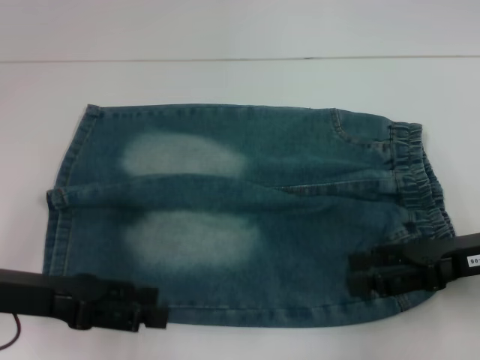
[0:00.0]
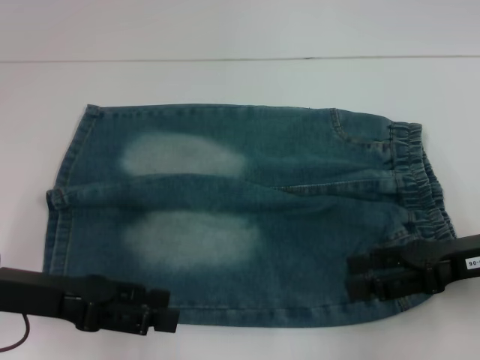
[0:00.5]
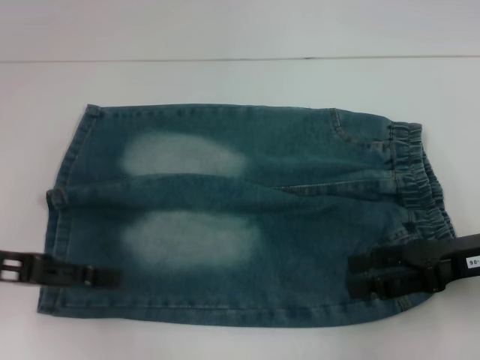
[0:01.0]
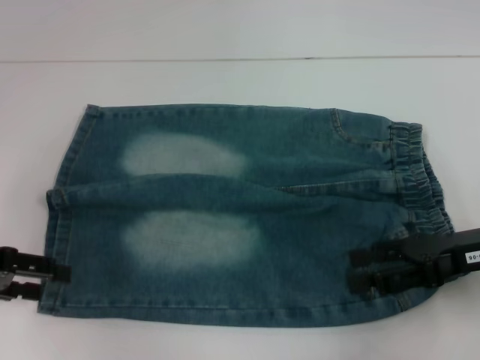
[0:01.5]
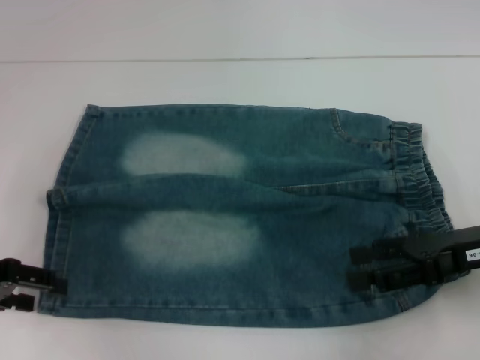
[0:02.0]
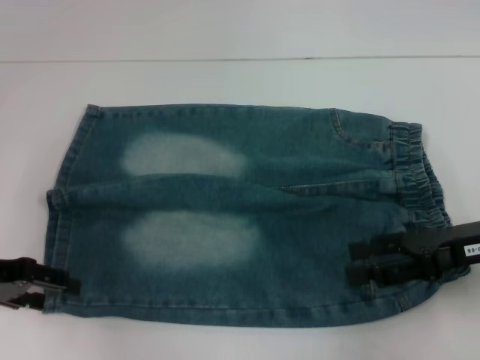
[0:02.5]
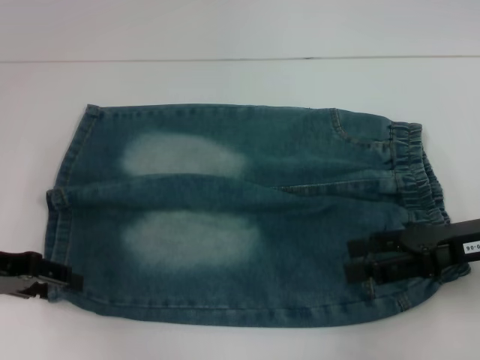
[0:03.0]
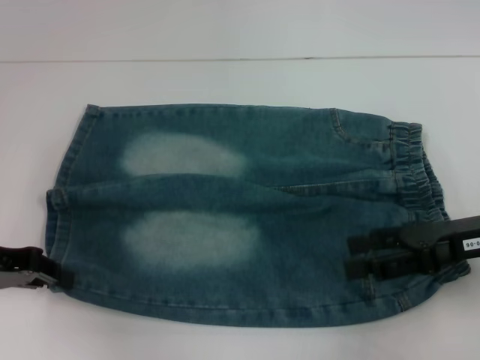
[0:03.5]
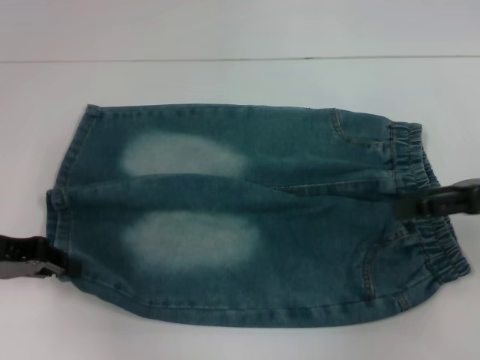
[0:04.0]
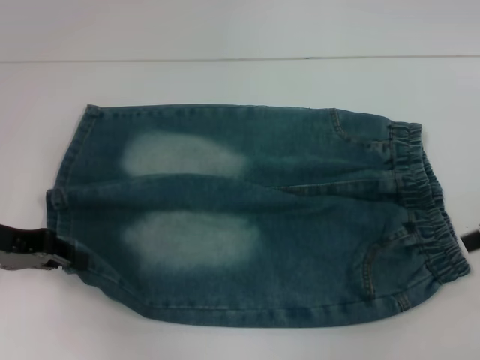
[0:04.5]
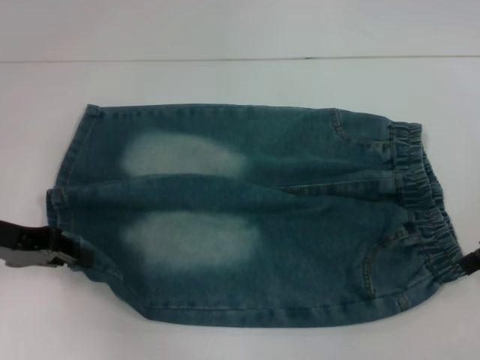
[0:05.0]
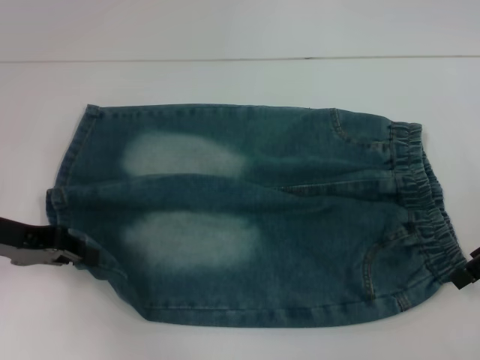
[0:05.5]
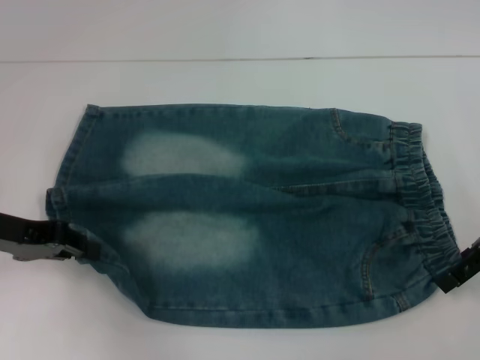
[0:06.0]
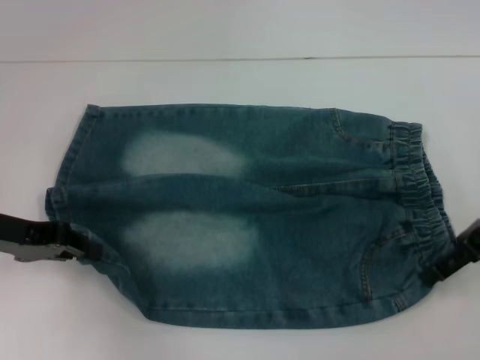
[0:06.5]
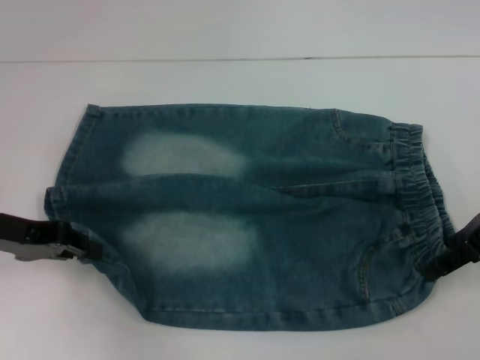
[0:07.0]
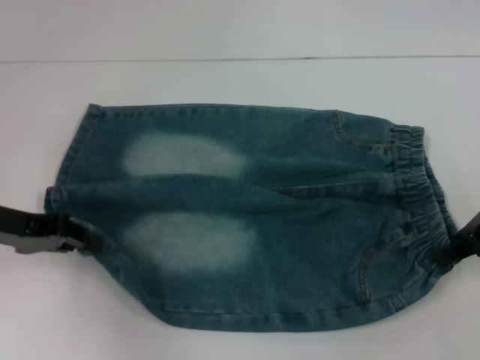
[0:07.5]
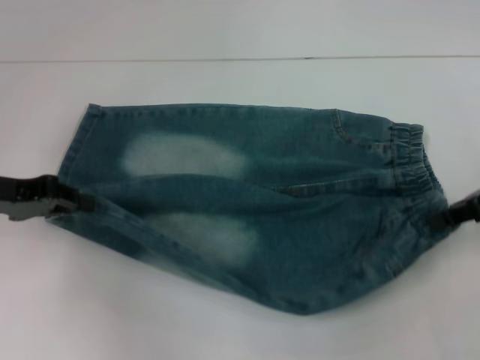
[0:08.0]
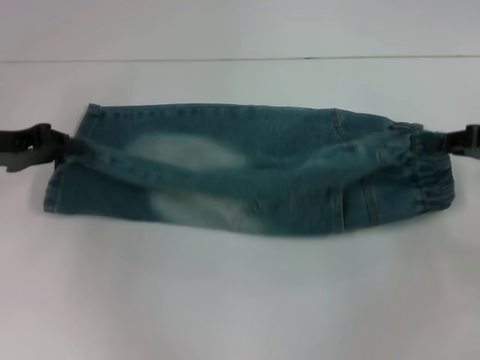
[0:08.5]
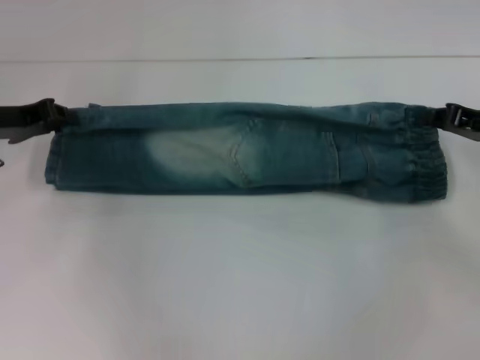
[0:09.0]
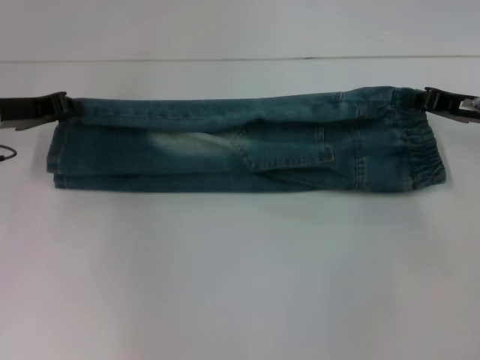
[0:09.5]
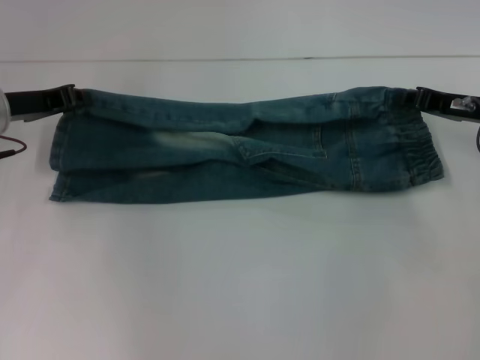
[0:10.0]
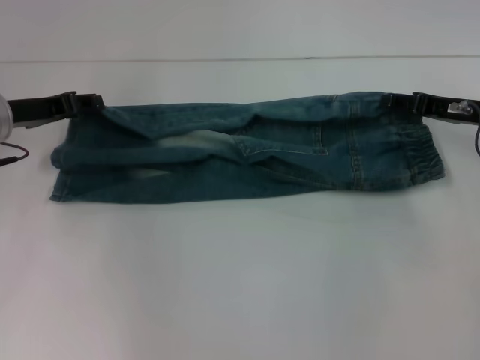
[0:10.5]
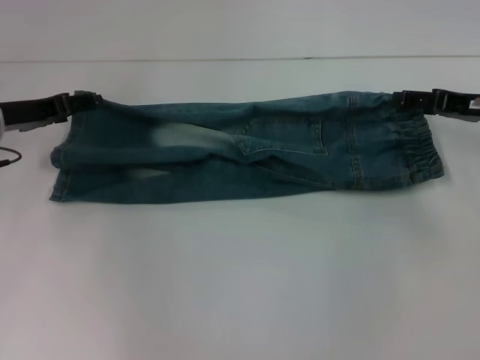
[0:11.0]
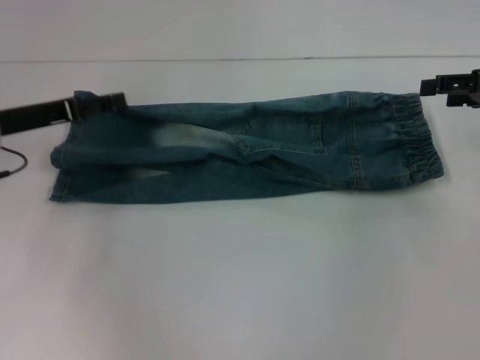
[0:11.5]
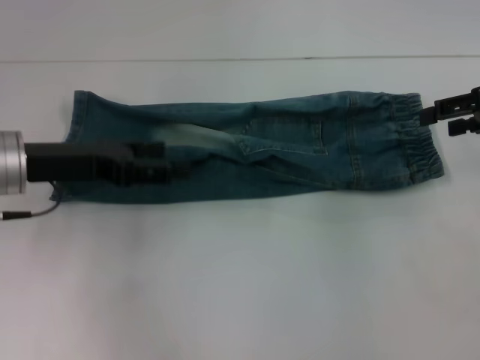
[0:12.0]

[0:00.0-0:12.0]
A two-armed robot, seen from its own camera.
Step, 0:00.0 to 0:03.5: Grab the lower left pant leg with your left hand.
Step, 0:04.0 to 0:07.0: Hold the lower right waistband with your right hand.
Step, 0:07.5 to 0:10.5: Fold upward with your right hand.
0:00.0 to 0:02.0: The left gripper goes approximately 5 cm to the left.
0:02.0 to 0:04.0: The right gripper shifts by approximately 5 cm. The left gripper closes up.
0:06.0 to 0:08.0: The right gripper closes.
0:08.0 to 0:10.0: The left gripper travels forward by approximately 10 cm; the right gripper travels forward and downward by roughly 10 cm.
0:10.0 to 0:12.0: The left gripper travels backward by some 5 cm, and opens. Meanwhile the right gripper shifts roughly 10 cm upward, and opens up.

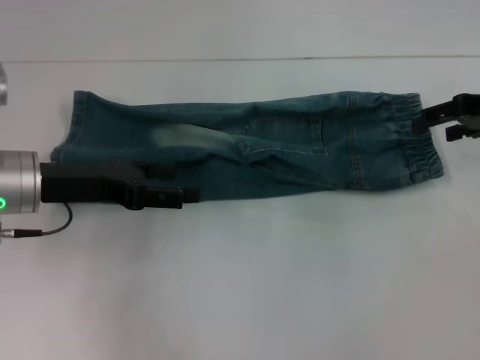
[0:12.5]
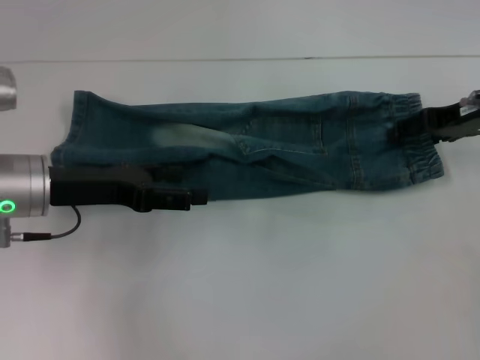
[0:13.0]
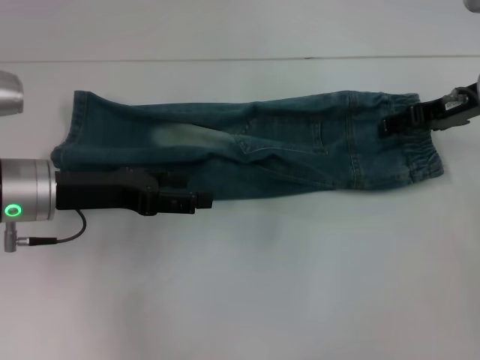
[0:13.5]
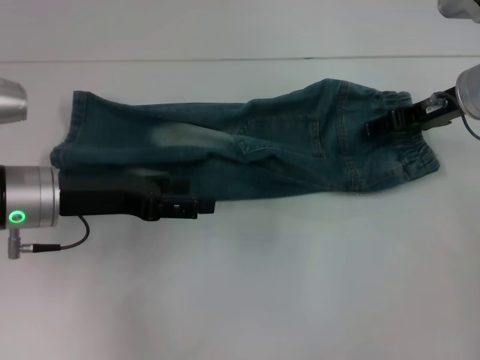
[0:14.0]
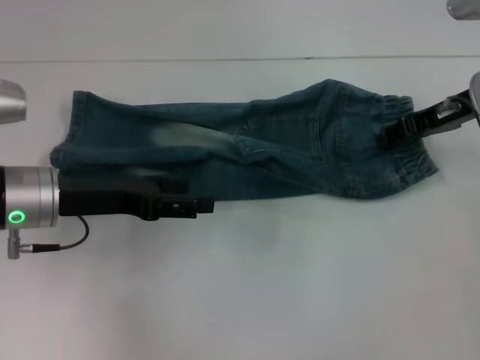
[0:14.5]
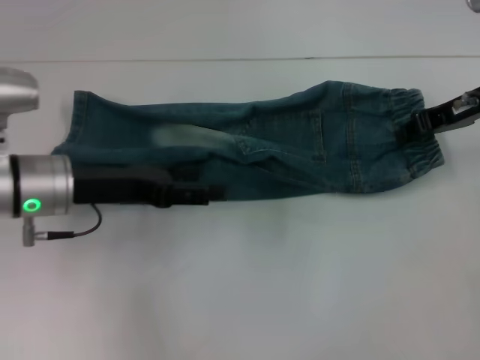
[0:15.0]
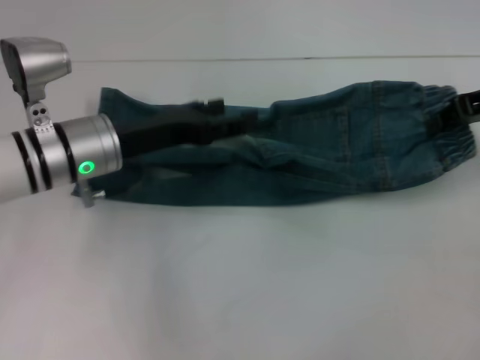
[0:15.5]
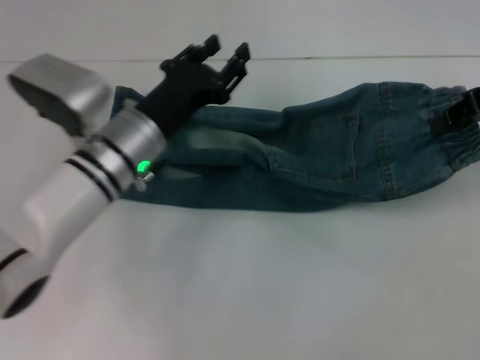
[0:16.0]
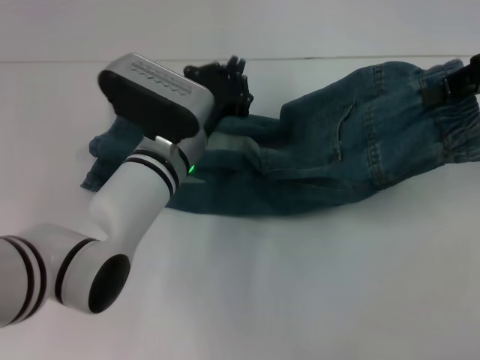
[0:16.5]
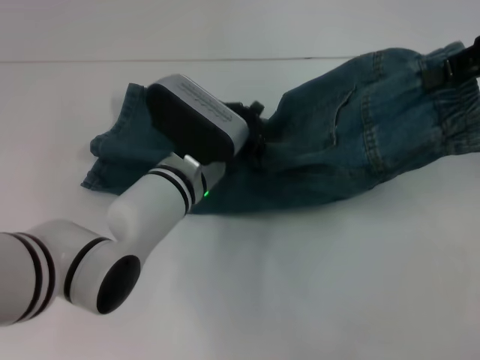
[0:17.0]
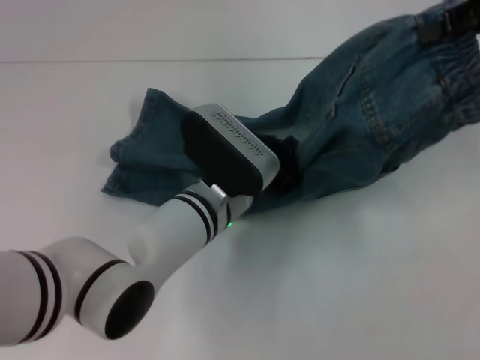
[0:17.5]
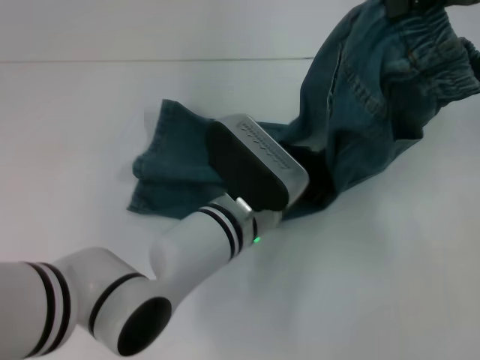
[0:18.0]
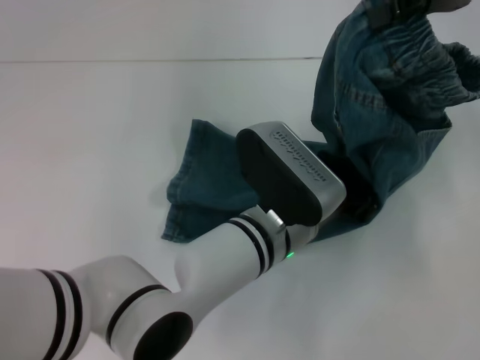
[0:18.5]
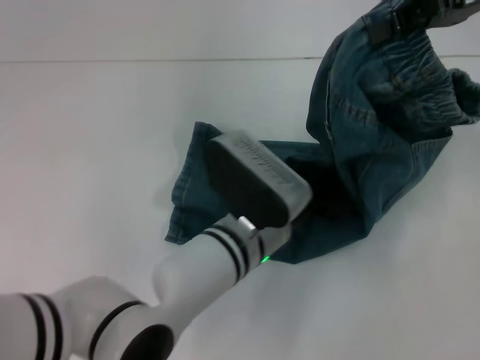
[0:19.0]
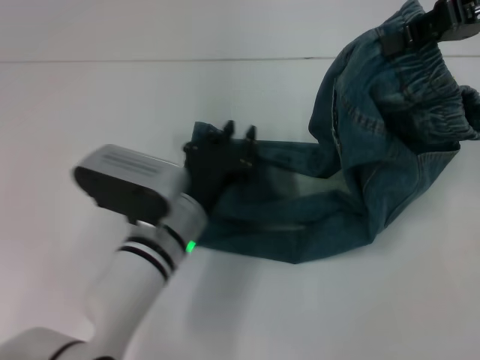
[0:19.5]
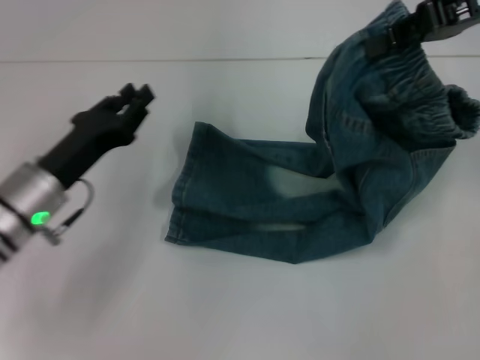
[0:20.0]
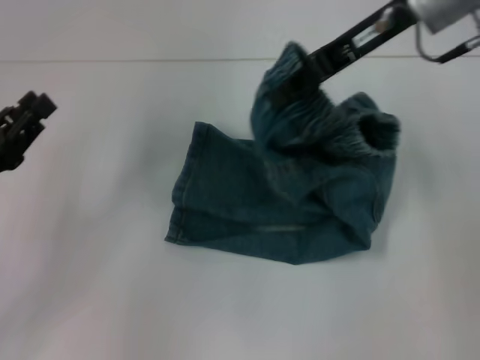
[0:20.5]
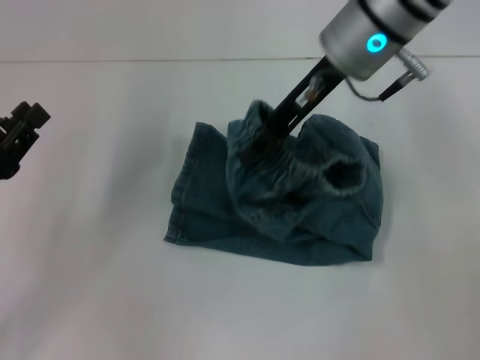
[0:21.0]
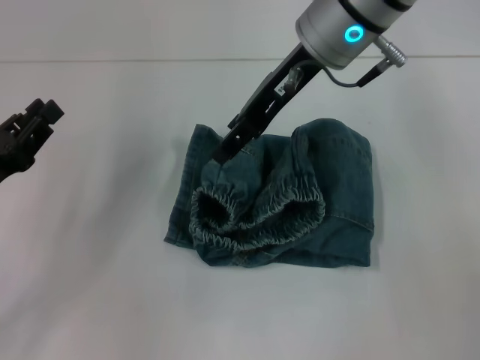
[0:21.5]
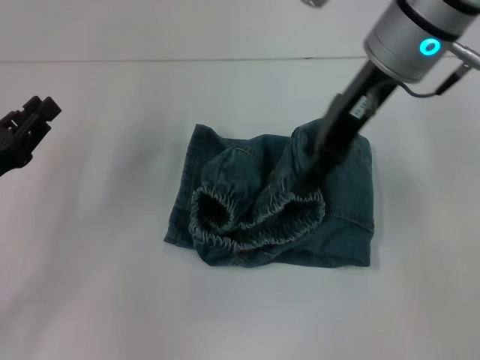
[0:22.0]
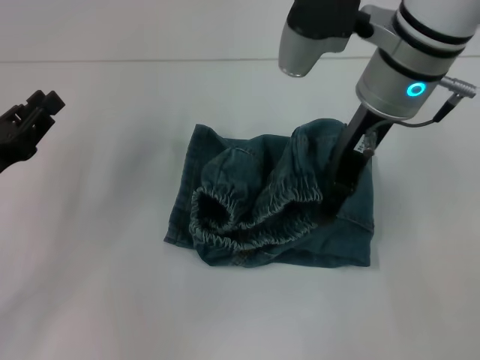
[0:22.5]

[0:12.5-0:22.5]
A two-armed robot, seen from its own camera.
Step, 0:12.5 to 0:15.0: Grab the waistband with your right hand.
Step, 0:15.5 to 0:18.5: Press the middle of the pants with your left hand.
0:12.5 to 0:14.5: The right gripper goes about 5 cm to the left.
0:14.5 to 0:16.5: The left gripper heads to the right, covering roughly 15 cm, and closes its fingers. Meanwhile the right gripper goes approximately 10 cm upward and to the right, and closes.
0:16.5 to 0:18.5: The right gripper goes some 5 cm upward and to the left, while the left gripper travels to the right and backward by some 10 cm.
0:18.5 to 0:20.5: The left gripper goes some 30 cm to the left. Meanwhile the right gripper shifts roughly 10 cm to the left.
0:20.5 to 0:22.5: The right gripper ends up about 5 cm from where it was, and opens.

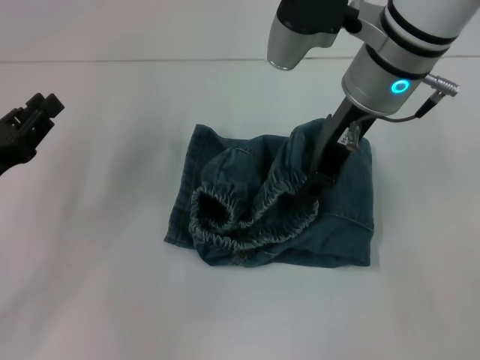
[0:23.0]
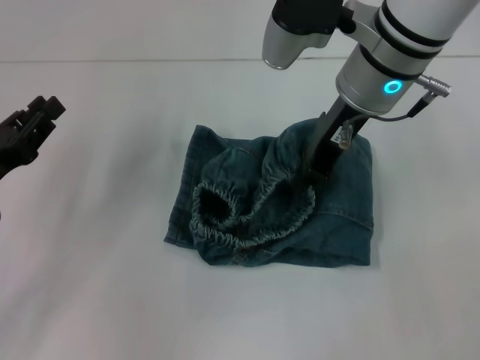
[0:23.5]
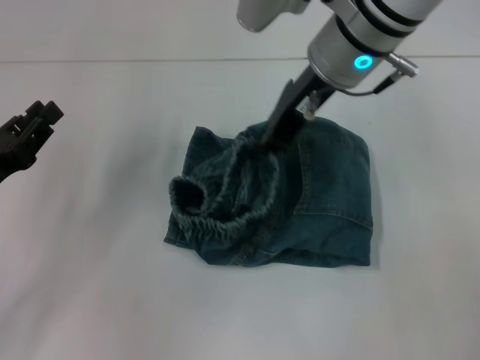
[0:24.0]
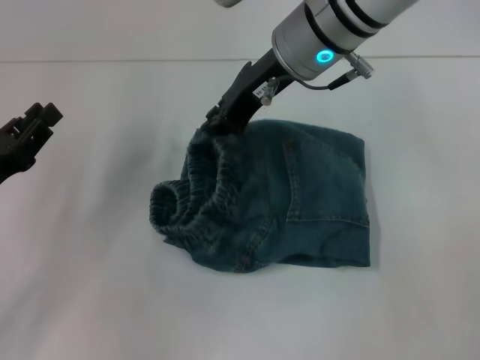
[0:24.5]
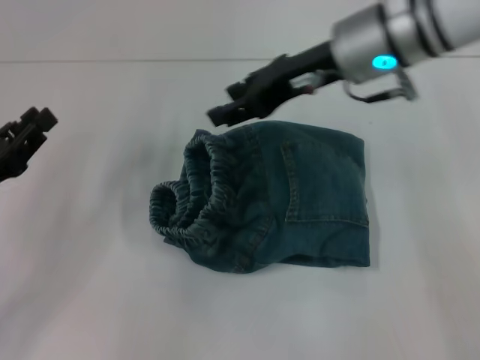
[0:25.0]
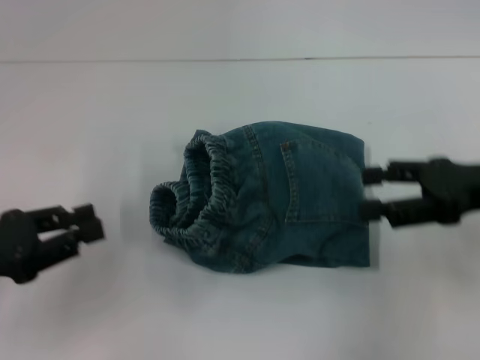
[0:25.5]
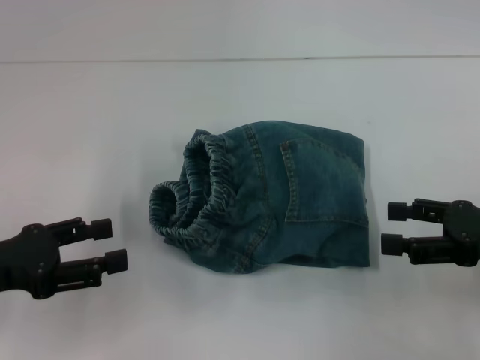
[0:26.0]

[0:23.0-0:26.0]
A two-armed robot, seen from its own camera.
0:23.0 to 0:24.5: The right gripper closes.
0:24.5 to 0:26.0: The right gripper heads to the right, backward and downward, covering roughly 30 cm, and opens its fingers; the left gripper changes place by some 5 cm, and opens its fingers.
